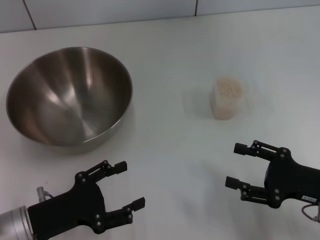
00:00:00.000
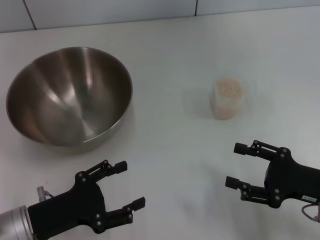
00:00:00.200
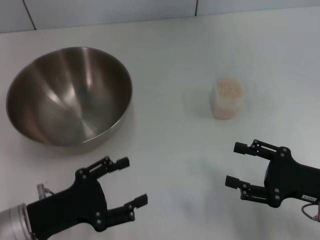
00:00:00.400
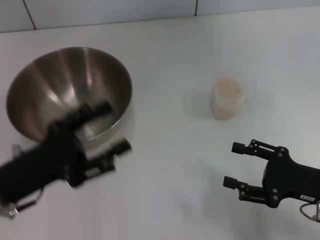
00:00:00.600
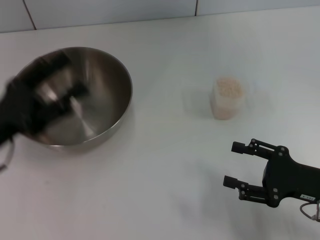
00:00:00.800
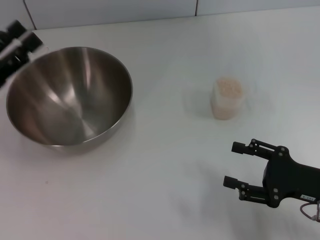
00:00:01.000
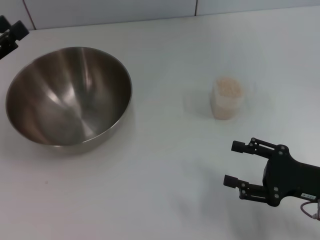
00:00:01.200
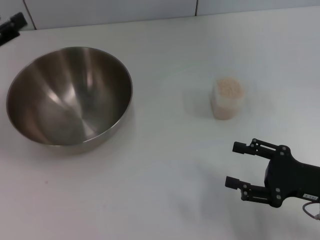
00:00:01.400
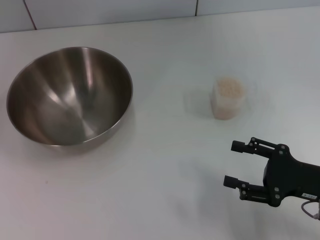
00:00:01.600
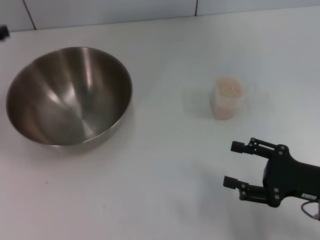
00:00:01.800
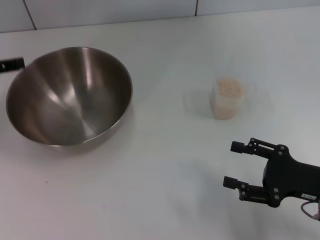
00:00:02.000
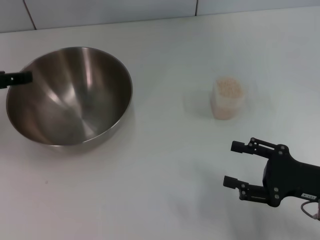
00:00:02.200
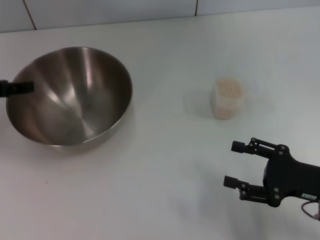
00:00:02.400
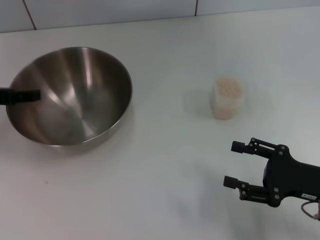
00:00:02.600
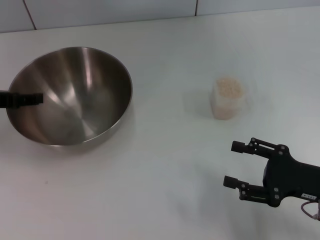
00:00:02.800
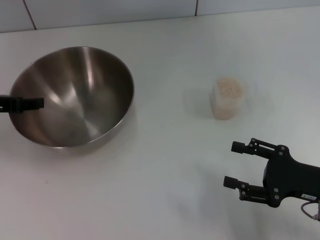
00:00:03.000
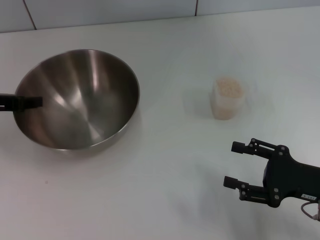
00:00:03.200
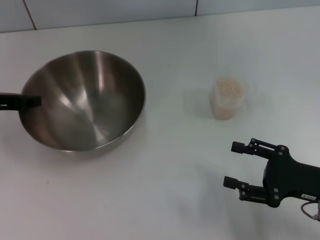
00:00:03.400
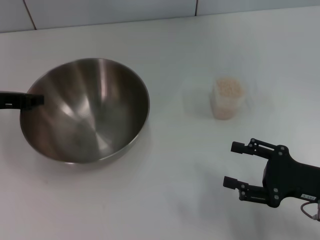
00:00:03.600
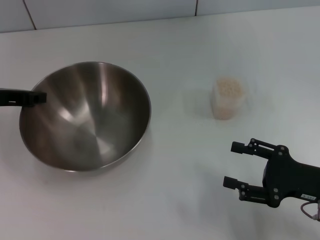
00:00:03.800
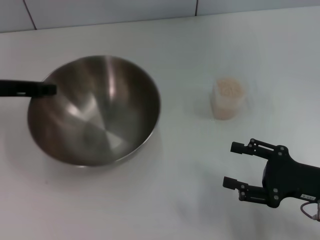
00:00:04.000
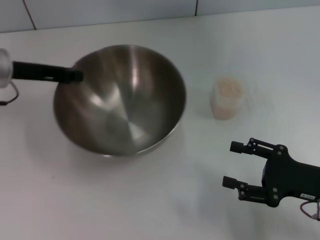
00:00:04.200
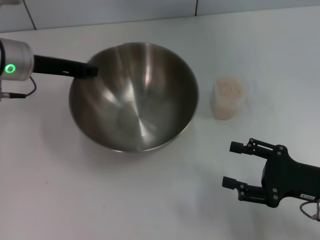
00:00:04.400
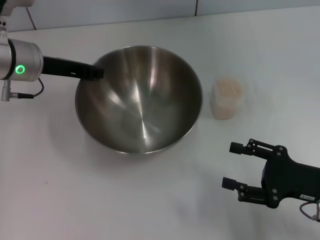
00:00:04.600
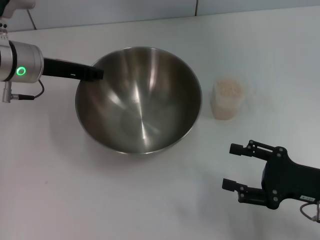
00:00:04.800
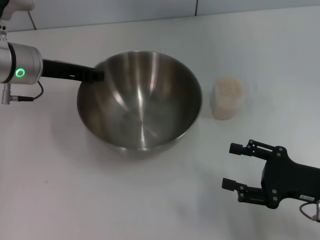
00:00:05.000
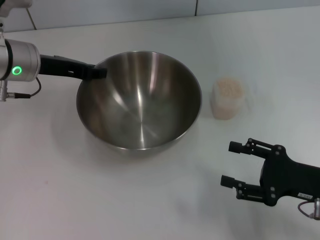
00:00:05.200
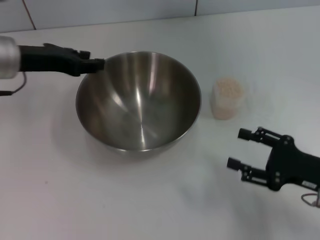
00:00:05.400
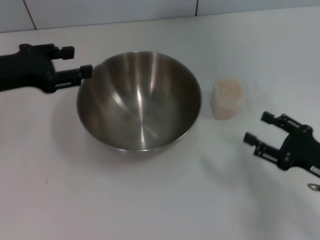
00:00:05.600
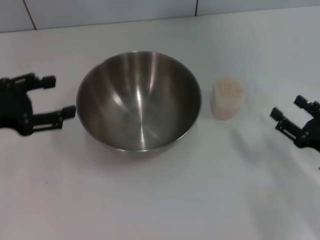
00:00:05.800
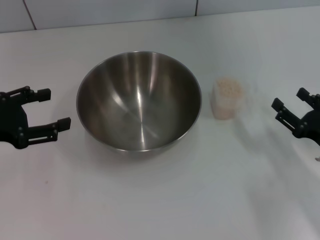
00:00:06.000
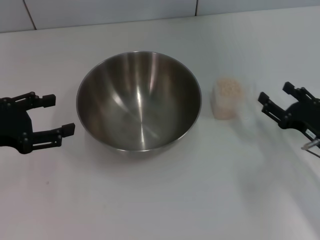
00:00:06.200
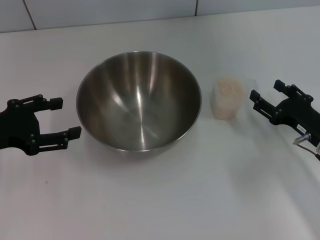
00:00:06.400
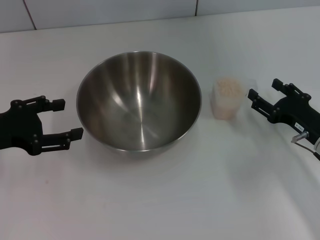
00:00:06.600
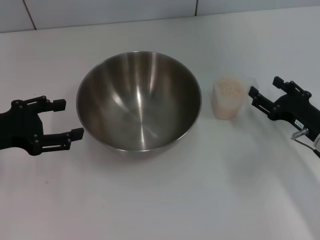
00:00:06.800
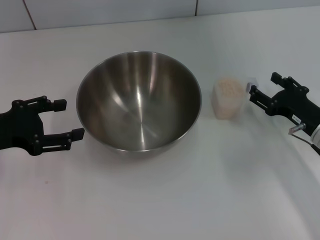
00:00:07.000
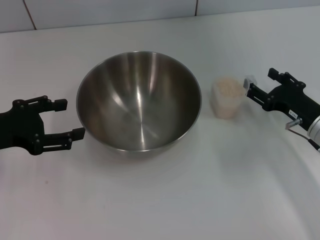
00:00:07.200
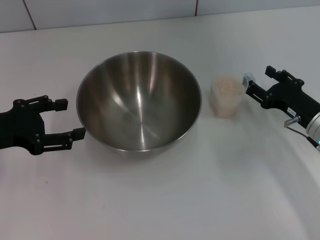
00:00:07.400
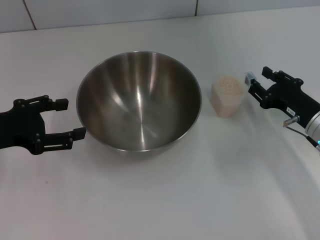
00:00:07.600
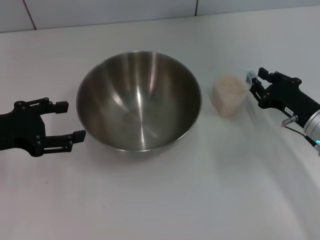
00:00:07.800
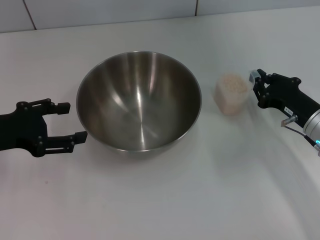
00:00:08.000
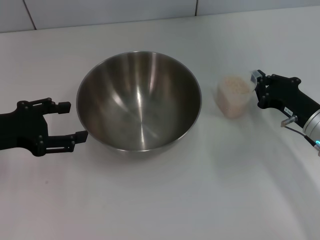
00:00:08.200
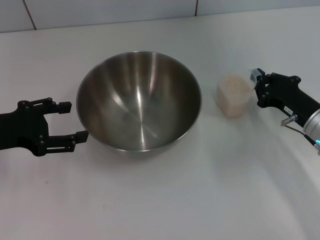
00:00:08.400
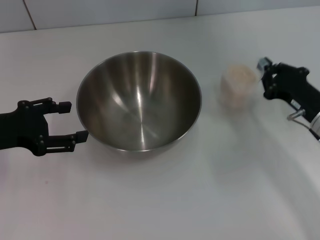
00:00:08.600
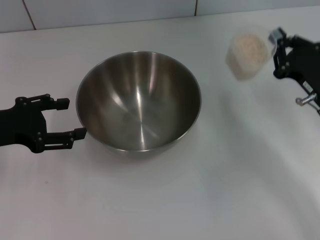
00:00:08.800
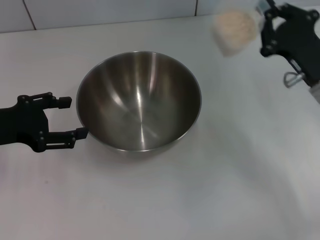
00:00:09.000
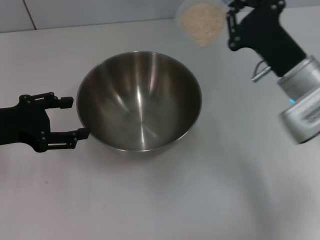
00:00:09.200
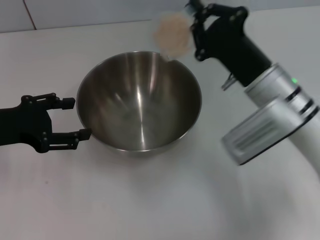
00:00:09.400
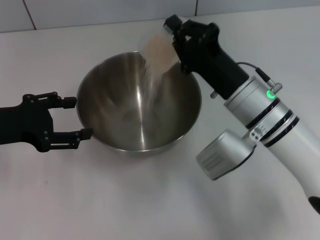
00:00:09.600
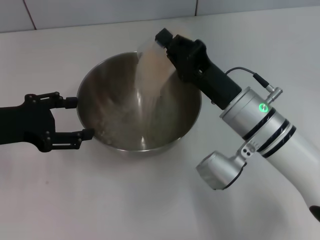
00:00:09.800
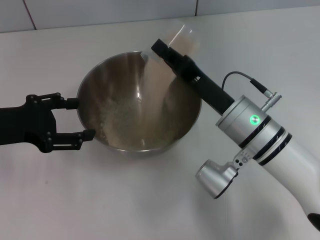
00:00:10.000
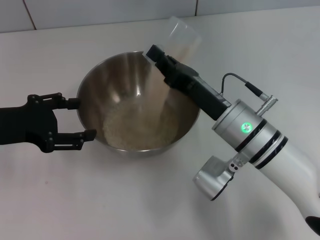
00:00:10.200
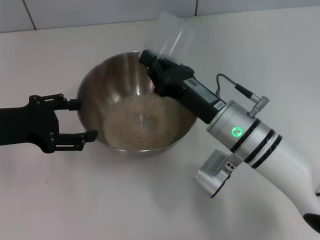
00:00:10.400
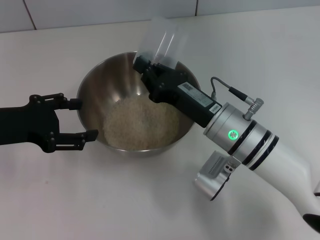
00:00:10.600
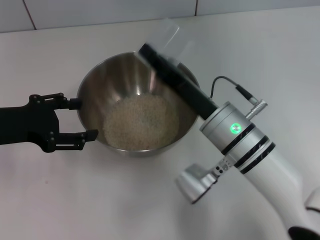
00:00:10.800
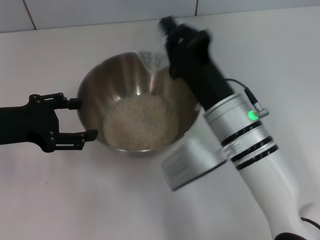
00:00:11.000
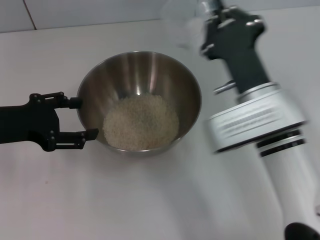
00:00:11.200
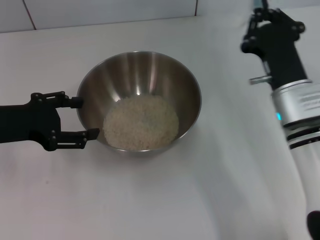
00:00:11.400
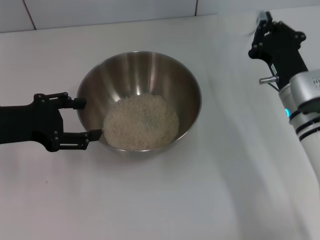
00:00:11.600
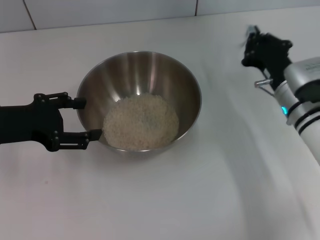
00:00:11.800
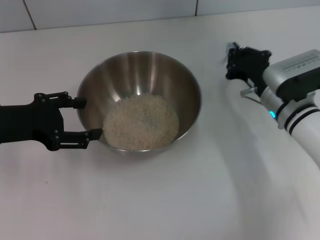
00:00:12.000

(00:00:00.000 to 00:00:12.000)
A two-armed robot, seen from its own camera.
Task of the whole recording: Place the bowl in the middle of the table with one hand and pour the rice from the grain cup into it with the other hand.
Step, 00:00:00.000 - 00:00:04.000: Pick up the bowl with the left gripper.
Step, 00:00:04.400 - 00:00:05.400: Place the bowl in the center of view with the left gripper.
Step, 00:00:05.600 - 00:00:08.600: Pick up the cup with rice in it with the right gripper.
Step, 00:00:09.000 - 00:00:11.200: Pour the rice from the cup into the bowl with the right gripper.
00:00:00.000 - 00:00:01.600: The left gripper is displaced upward, forward and to the left by some 25 cm.
00:00:01.600 - 00:00:03.000: The left gripper moves downward, approximately 5 cm.
00:00:03.000 - 00:00:04.400: The left gripper goes roughly 10 cm to the right and forward, and closes up.
00:00:04.400 - 00:00:06.000: The left gripper goes approximately 15 cm backward and to the left, and opens.
00:00:06.000 - 00:00:07.600: The right gripper goes approximately 5 cm forward.
00:00:07.600 - 00:00:09.000: The right gripper goes roughly 5 cm upward, and closes its fingers.
00:00:09.000 - 00:00:10.400: The right gripper is displaced to the left by roughly 15 cm.
00:00:10.400 - 00:00:12.000: The right gripper moves to the right and forward, roughly 10 cm.

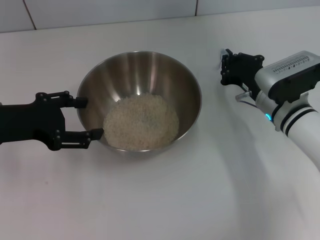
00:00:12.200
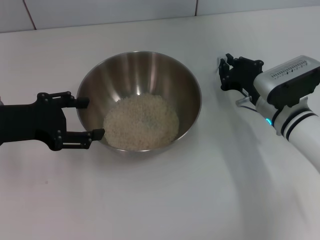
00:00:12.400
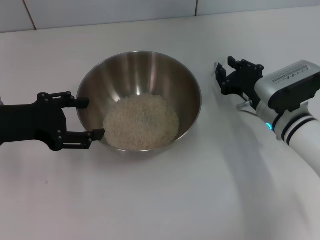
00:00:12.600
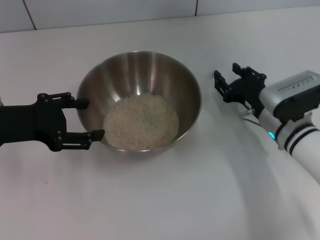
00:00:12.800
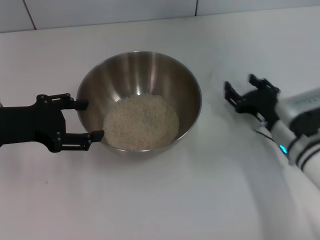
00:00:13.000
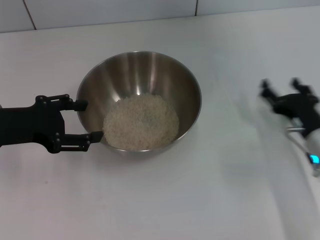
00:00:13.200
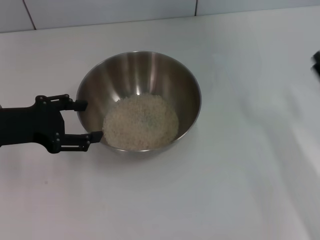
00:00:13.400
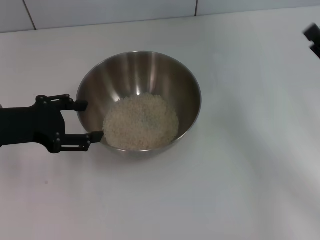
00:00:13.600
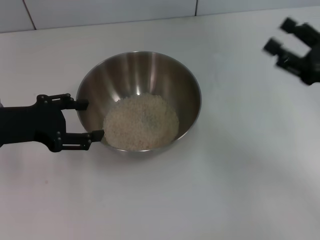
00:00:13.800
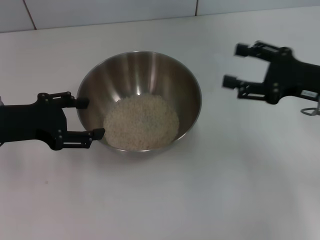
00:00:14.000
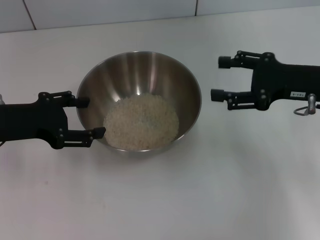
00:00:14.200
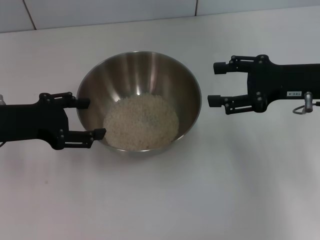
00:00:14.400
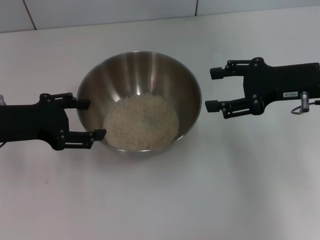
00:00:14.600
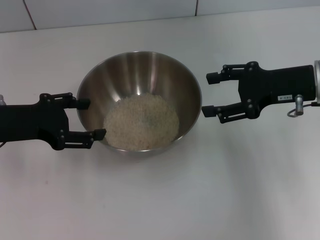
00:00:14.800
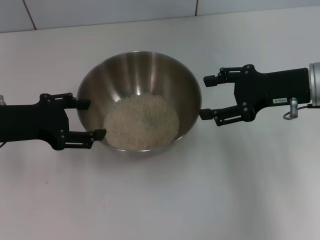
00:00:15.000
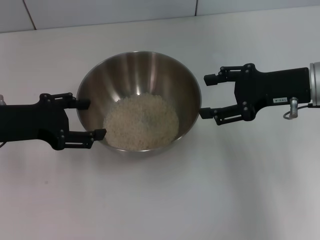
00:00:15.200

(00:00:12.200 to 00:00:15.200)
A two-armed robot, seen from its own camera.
Task of the whole recording: Place the bowl in the middle of the table with one hand and pour the rice from the grain cup into it with the other hand.
00:00:12.200 - 00:00:13.800: The right gripper goes approximately 15 cm to the right, upward and backward, and opens its fingers.
00:00:13.800 - 00:00:15.200: The right gripper travels to the left and forward by roughly 10 cm.
